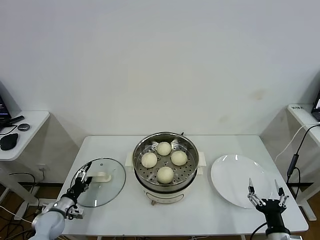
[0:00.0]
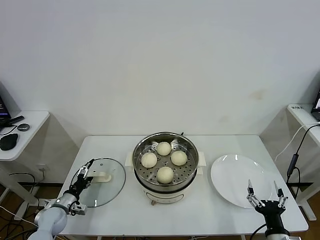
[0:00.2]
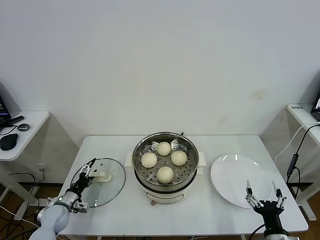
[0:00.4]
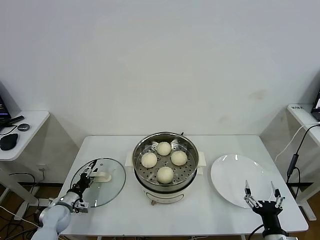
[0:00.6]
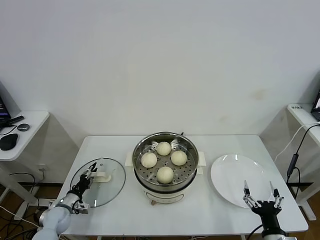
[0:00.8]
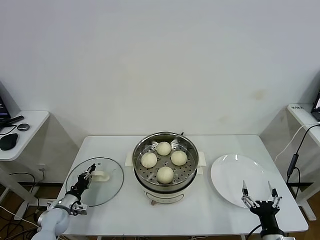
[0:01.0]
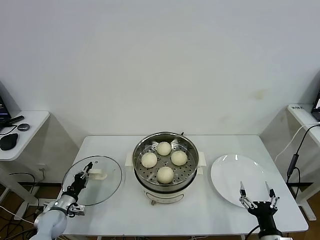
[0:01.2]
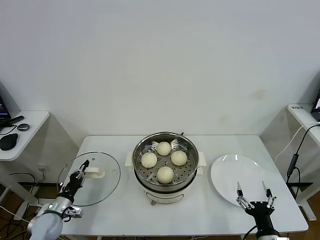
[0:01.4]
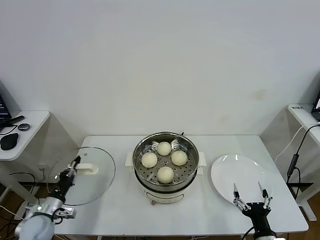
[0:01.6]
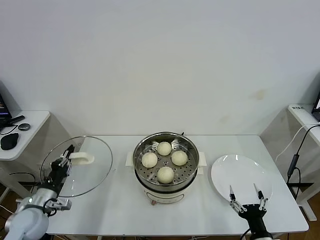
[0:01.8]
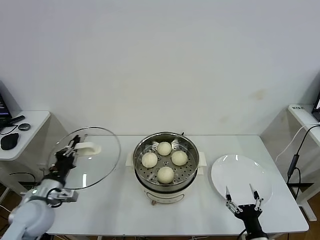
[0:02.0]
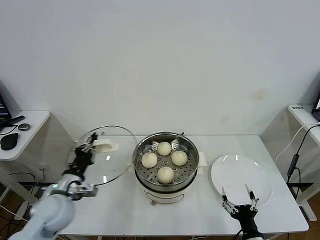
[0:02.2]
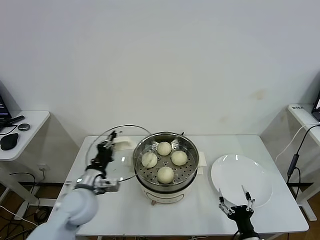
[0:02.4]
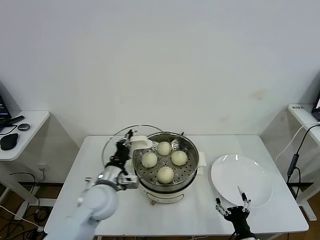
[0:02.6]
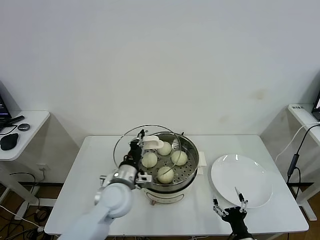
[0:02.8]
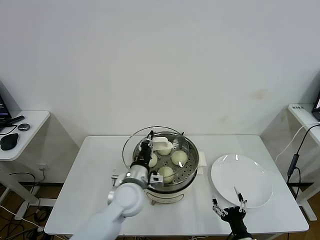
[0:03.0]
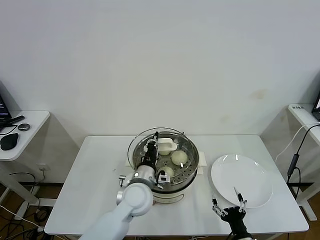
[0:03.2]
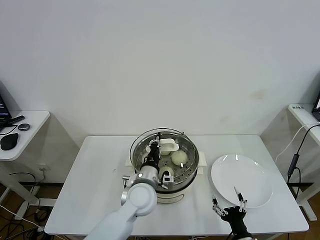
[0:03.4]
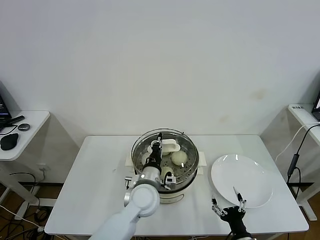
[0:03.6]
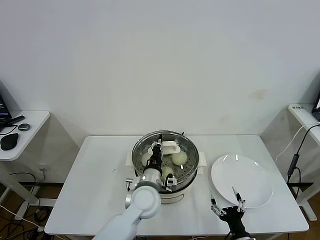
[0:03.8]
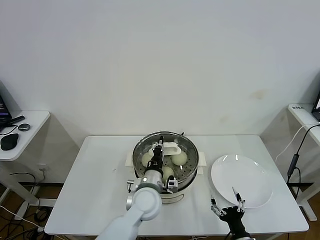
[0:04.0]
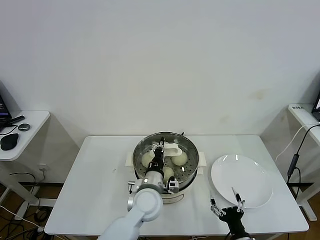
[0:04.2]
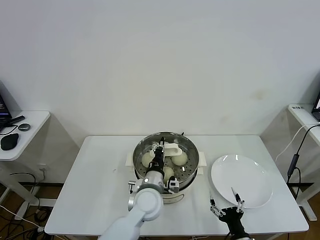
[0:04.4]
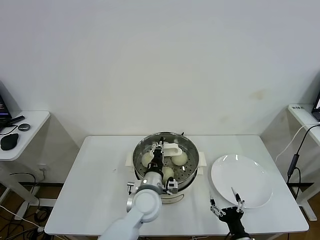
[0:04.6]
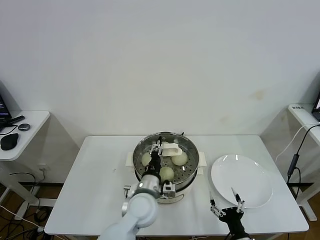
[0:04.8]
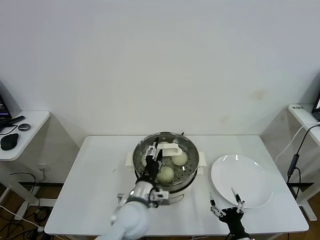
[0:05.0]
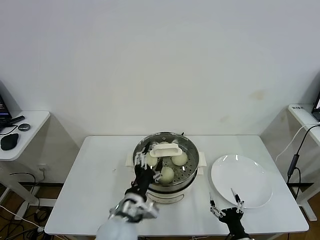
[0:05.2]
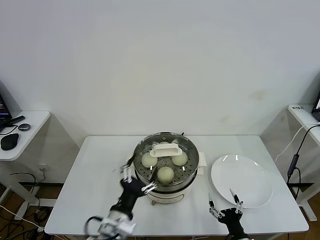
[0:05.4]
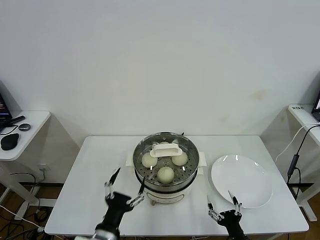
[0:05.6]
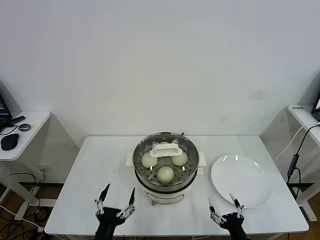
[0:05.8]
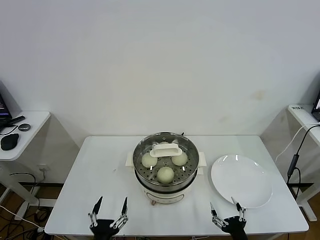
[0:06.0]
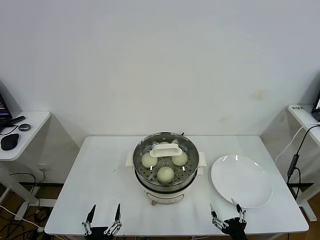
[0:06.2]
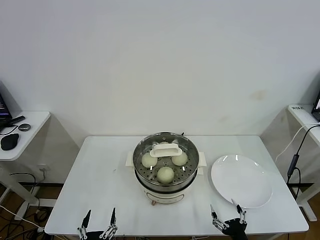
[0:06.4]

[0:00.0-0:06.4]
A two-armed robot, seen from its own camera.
Task of the whole recording: take steamed baozi put them in steamer.
Step, 0:01.4 to 0:05.2: Place the pot lid on the steamer with left gripper.
0:00.0 to 0:01.6: The left gripper heads upward, covering some 5 cm, and closes up.
0:01.6 to 0:03.2: The left gripper travels to the right by about 35 cm. The right gripper moves roughly 5 cm.
0:03.2 to 0:04.8: There are only small adjustments of the grippers.
0:04.8 to 0:06.4: The left gripper moves backward and to the left, approximately 30 cm, and opens its fingers.

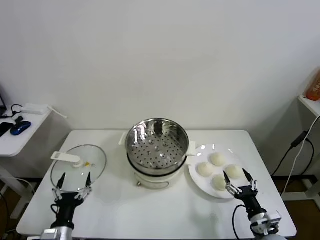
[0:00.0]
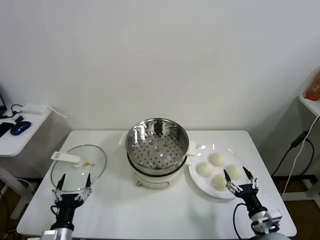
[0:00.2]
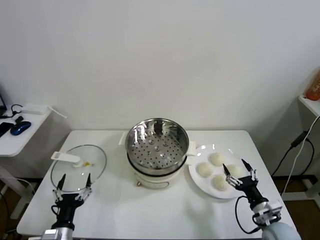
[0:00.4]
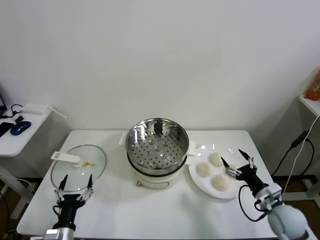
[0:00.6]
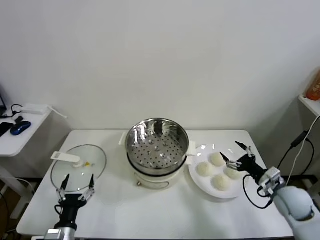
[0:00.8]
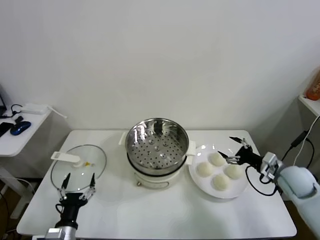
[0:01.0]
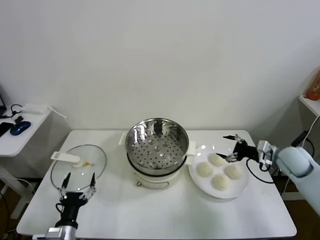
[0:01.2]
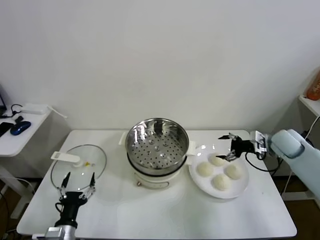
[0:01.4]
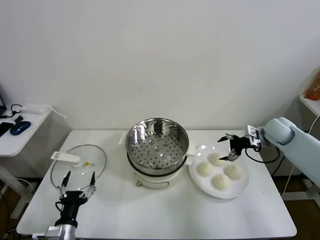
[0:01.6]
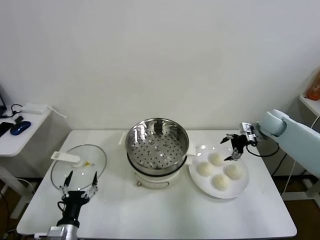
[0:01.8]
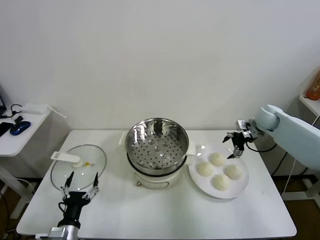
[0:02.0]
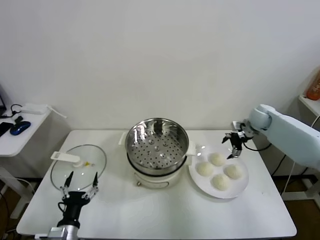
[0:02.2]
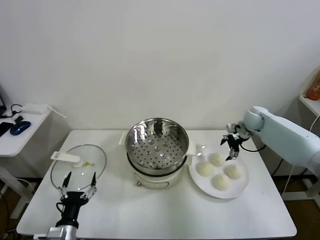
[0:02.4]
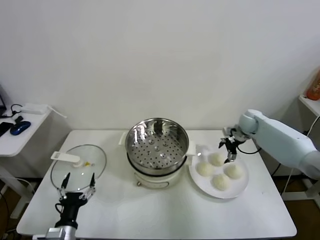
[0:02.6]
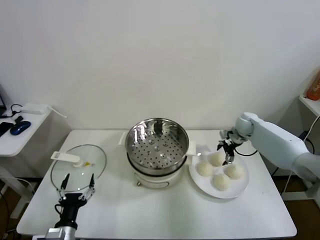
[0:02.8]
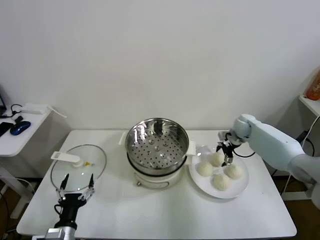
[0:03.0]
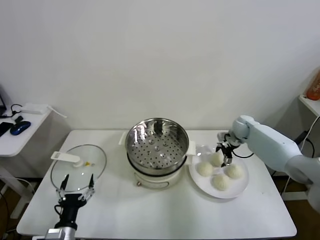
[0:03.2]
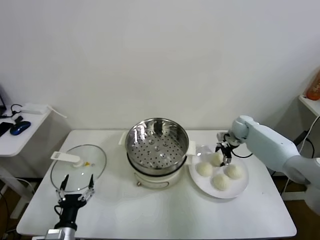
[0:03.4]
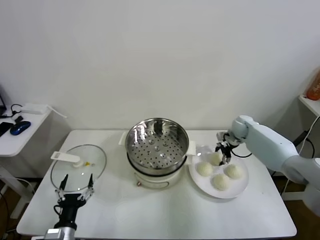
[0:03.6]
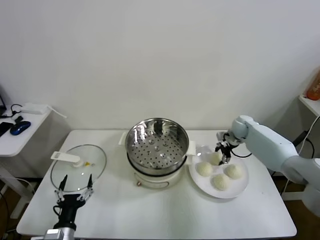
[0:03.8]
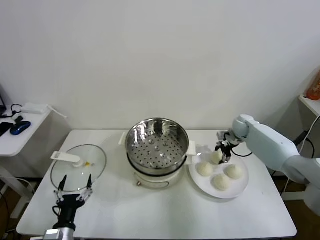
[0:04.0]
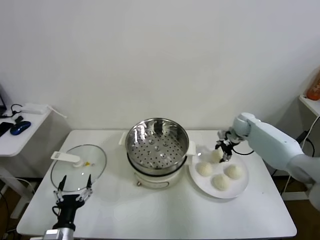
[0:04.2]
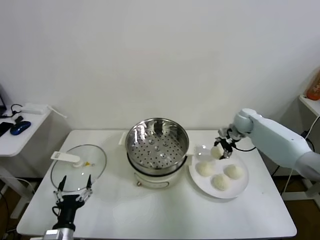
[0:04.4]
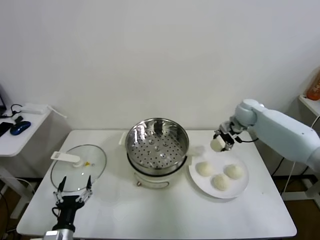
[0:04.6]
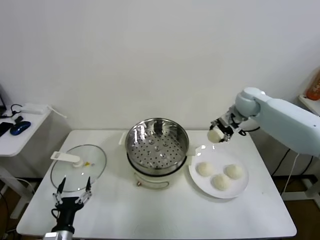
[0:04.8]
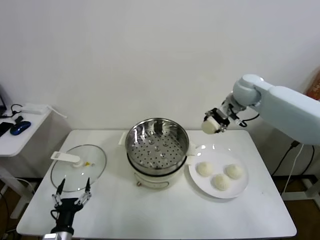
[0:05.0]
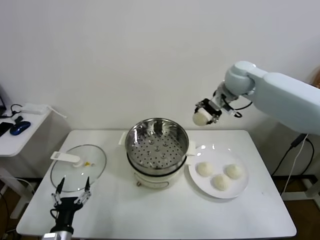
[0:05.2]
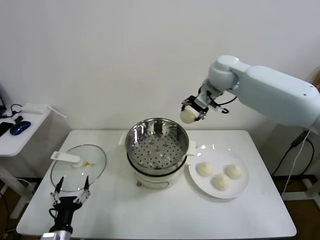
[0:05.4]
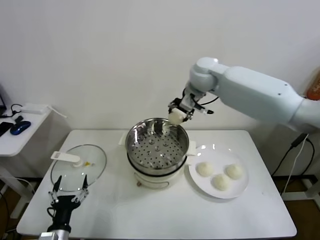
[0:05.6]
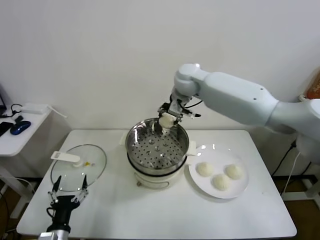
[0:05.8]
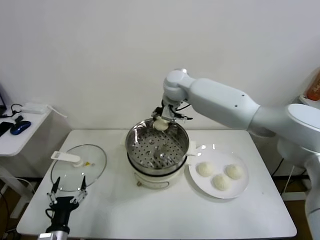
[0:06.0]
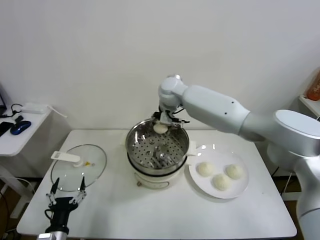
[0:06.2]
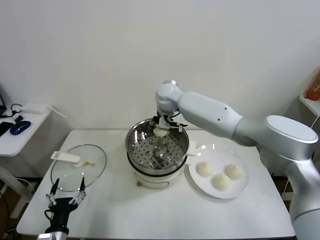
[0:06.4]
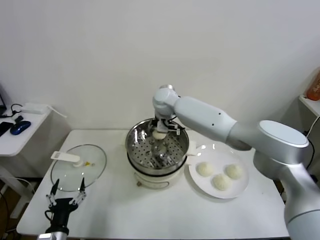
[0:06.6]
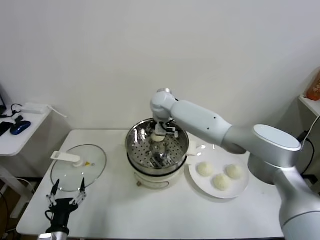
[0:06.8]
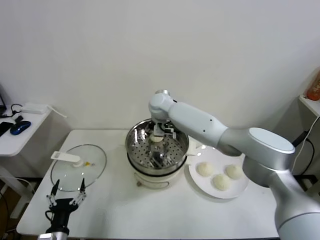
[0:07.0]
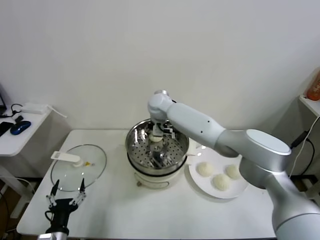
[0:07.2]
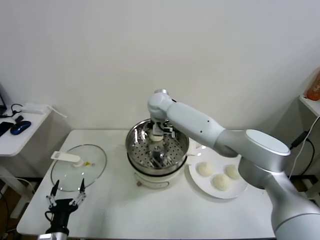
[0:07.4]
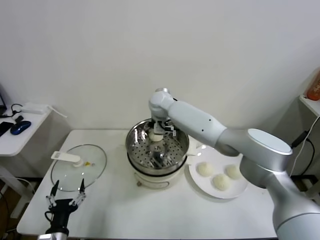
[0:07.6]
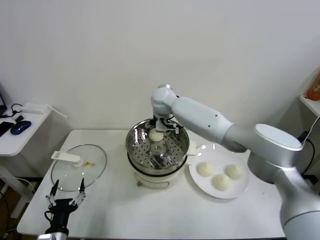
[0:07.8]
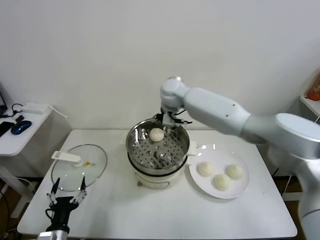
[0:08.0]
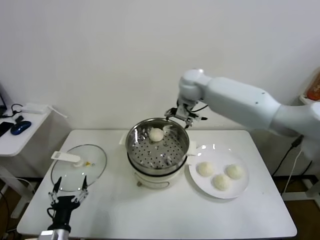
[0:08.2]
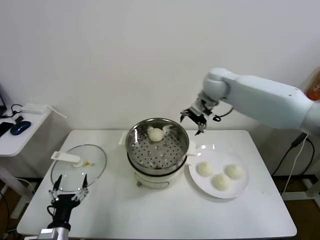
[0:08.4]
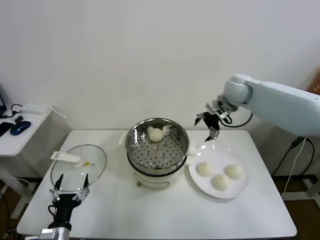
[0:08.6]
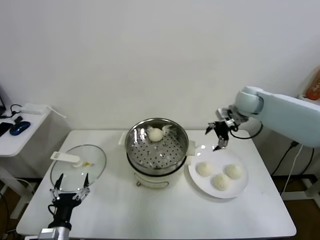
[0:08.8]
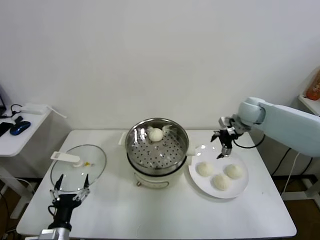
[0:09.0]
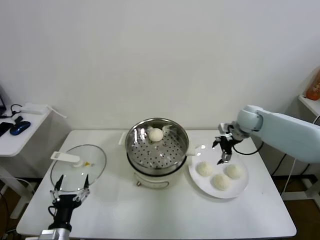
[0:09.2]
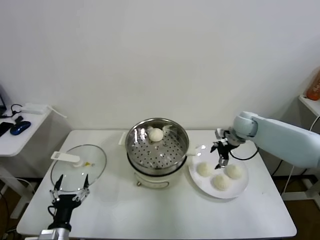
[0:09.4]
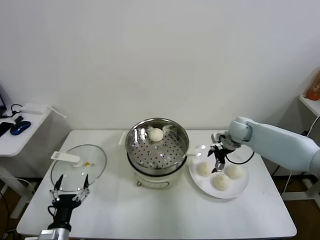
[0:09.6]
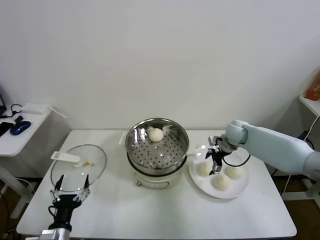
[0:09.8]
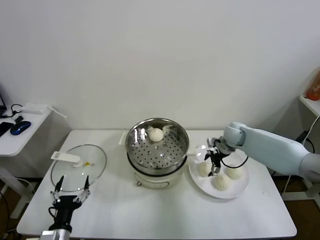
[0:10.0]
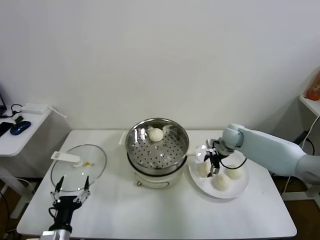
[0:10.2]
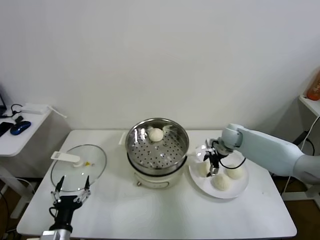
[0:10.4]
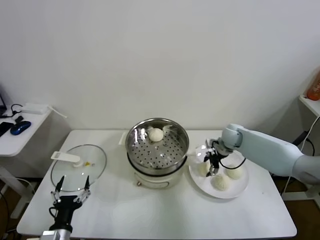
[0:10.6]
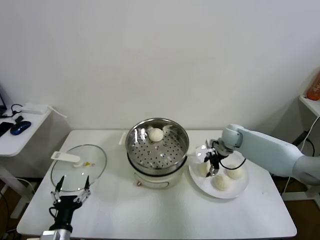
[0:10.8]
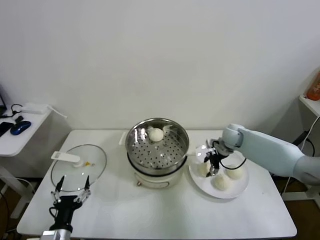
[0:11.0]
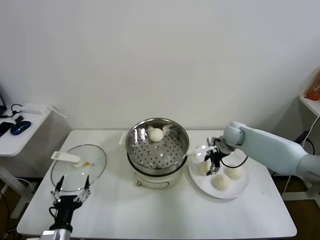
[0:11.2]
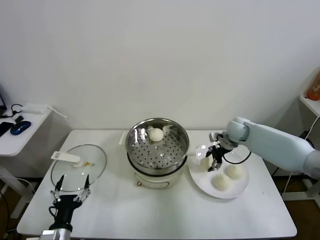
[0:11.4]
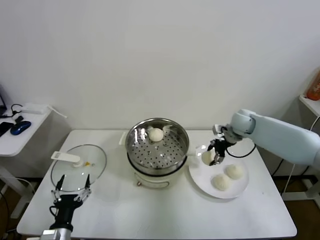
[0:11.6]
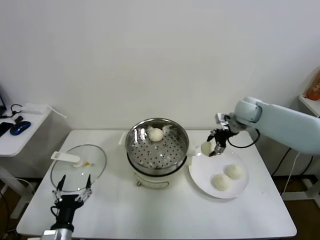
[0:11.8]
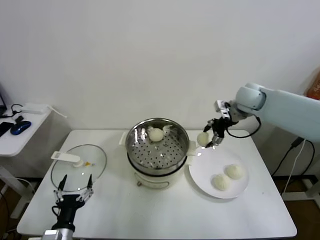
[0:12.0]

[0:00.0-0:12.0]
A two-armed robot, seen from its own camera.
Task of the whole recording: take steamed baozi put them in steamer.
Step, 0:00.0 to 0:03.6: Grasp the baozi in the plate with right gripper.
Step, 0:04.0 to 0:07.6: Place the baozi on the steamer with right gripper.
Step, 0:07.8 to 0:10.8: Grasp the baozi in the plate with right gripper.
0:01.6 to 0:03.0: The right gripper moves downward, forward and to the left, roughly 10 cm.
0:03.0 to 0:04.4: The right gripper travels upward by approximately 5 cm, and closes its fingers.
0:04.4 to 0:06.0: The right gripper shifts about 35 cm to the left and upward.
0:06.0 to 0:07.6: The right gripper shifts some 5 cm downward, and opens up.
0:07.6 to 0:09.0: The right gripper moves to the right, roughly 30 cm.
0:09.0 to 0:10.4: The right gripper travels downward by approximately 10 cm.
0:10.4 to 0:12.0: The right gripper is displaced upward by roughly 20 cm, and closes.

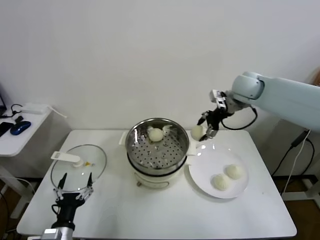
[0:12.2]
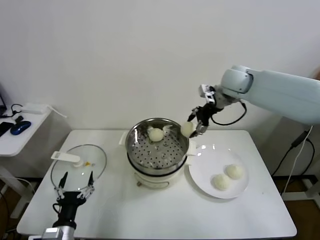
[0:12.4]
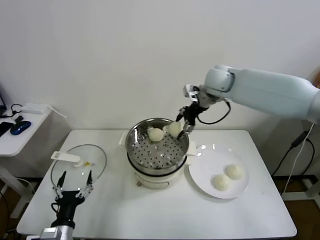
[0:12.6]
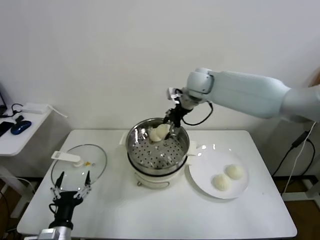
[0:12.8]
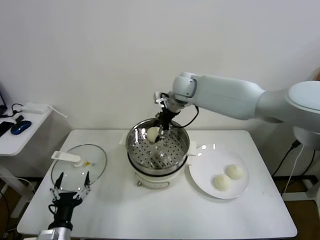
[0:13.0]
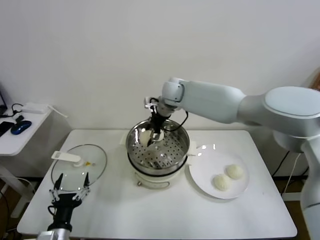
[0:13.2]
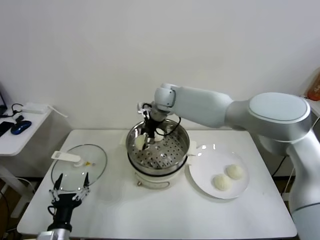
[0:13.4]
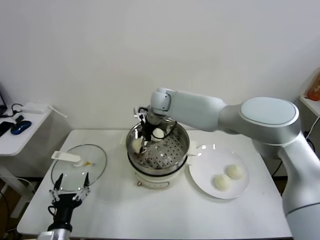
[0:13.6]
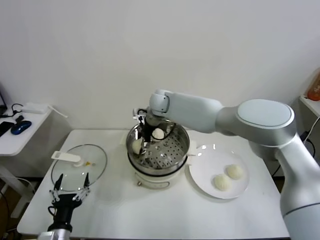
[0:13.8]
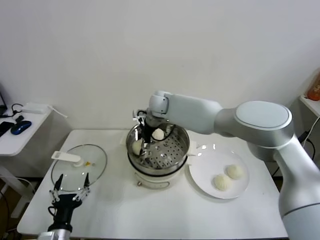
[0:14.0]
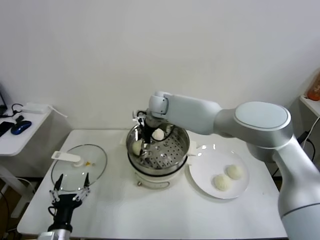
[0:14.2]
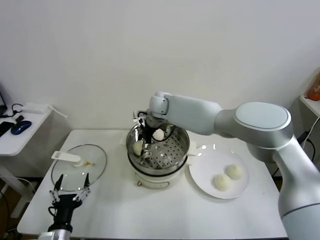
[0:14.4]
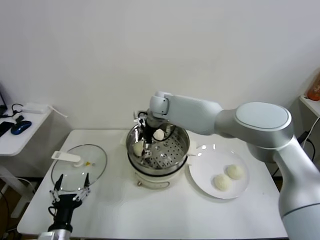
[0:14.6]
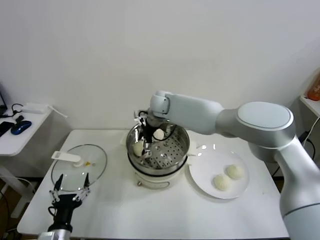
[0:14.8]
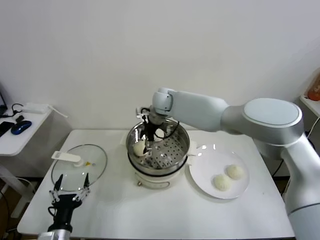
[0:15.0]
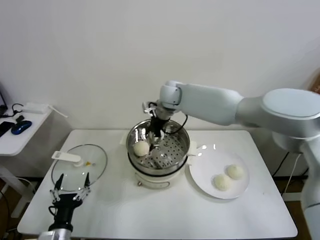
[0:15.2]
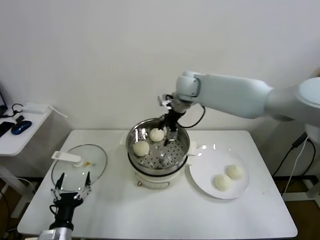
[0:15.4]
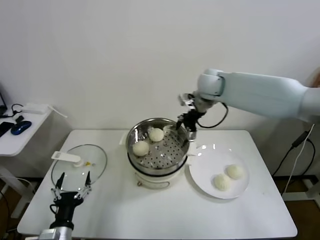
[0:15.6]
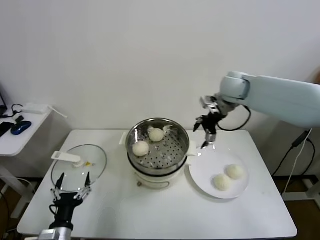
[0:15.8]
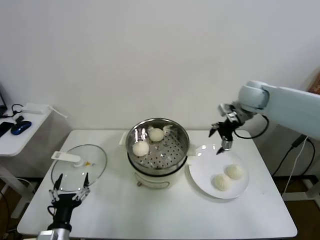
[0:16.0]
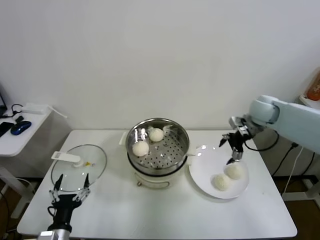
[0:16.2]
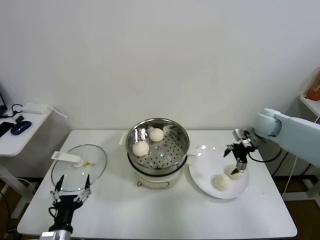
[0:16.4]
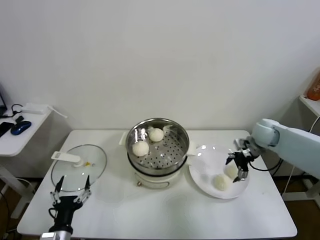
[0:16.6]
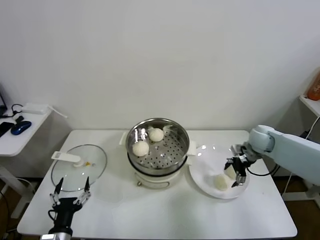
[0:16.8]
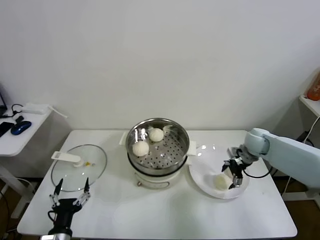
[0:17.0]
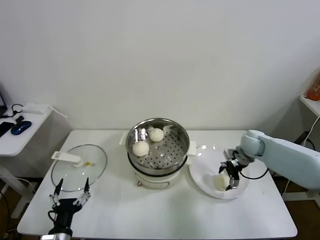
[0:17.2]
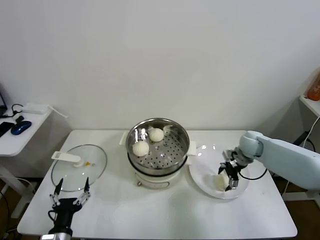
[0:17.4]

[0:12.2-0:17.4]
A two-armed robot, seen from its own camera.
Task of the whole recording: take steamed baozi put them in steamer.
Step, 0:12.2 to 0:15.0: Place the baozi on the steamer with right gripper.
0:12.2 to 0:14.0: The right gripper goes roughly 25 cm to the left.
0:14.0 to 0:15.6: The right gripper travels to the right and upward by roughly 20 cm, and opens its fingers.
0:15.6 to 0:17.4: The right gripper heads downward and to the right, covering about 30 cm.
